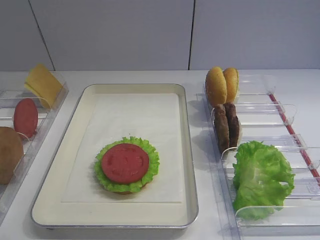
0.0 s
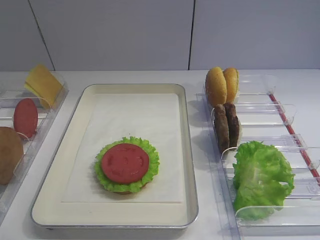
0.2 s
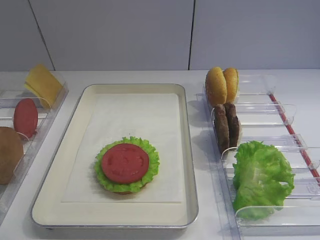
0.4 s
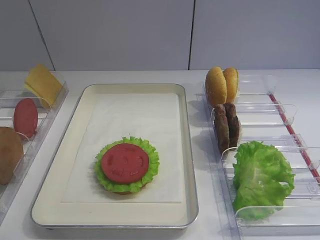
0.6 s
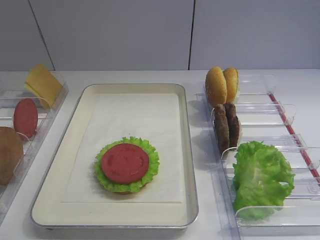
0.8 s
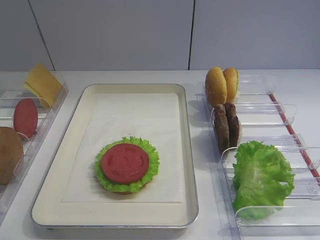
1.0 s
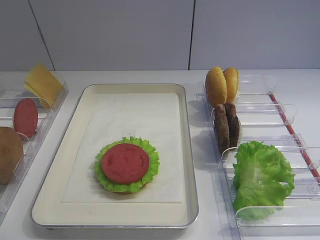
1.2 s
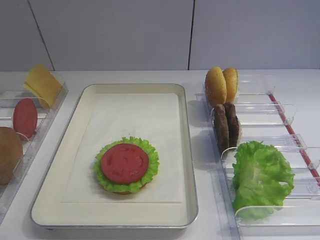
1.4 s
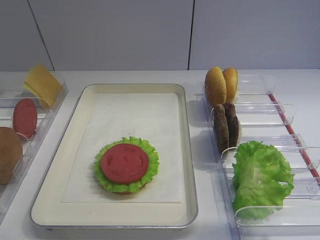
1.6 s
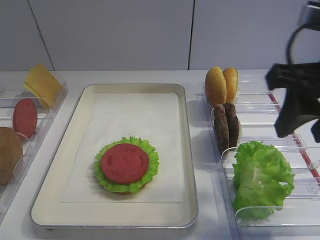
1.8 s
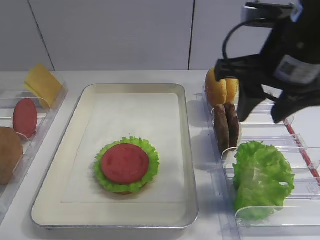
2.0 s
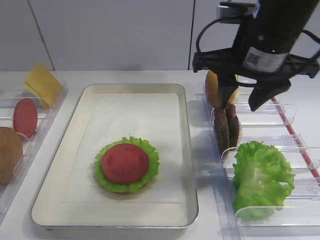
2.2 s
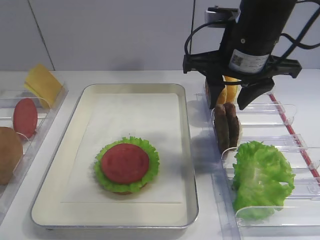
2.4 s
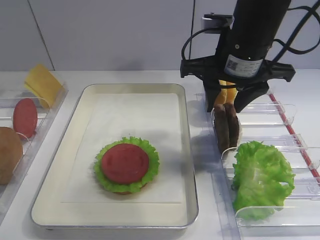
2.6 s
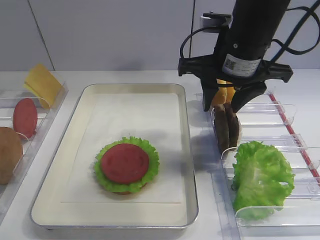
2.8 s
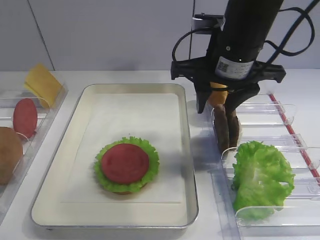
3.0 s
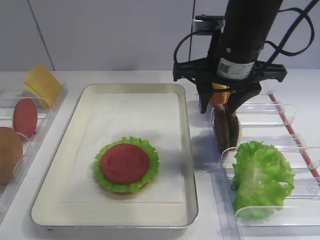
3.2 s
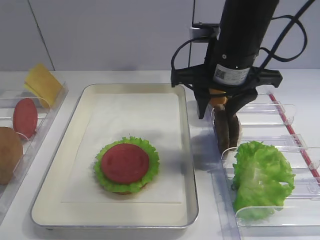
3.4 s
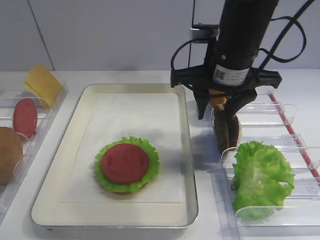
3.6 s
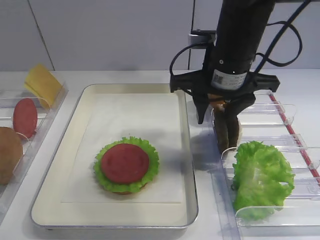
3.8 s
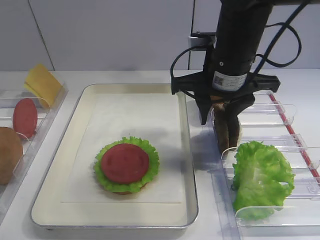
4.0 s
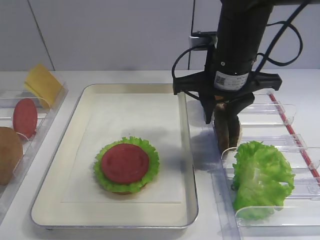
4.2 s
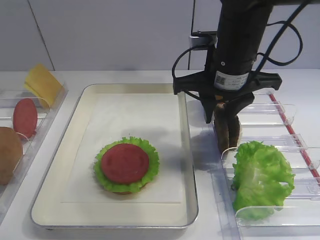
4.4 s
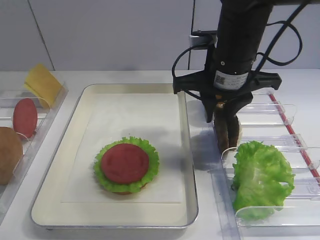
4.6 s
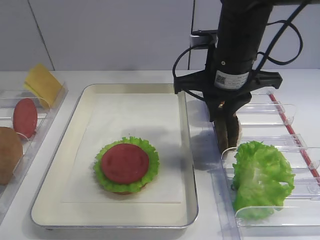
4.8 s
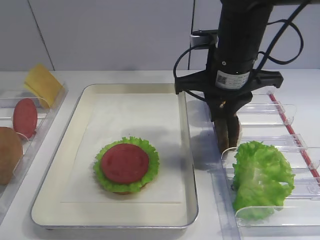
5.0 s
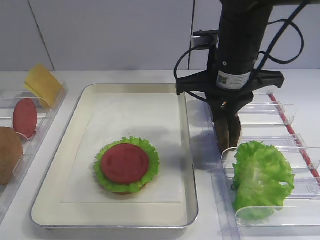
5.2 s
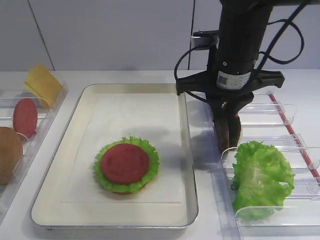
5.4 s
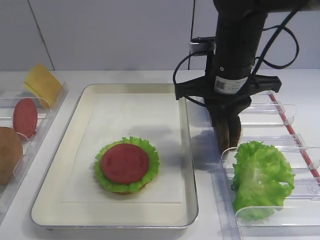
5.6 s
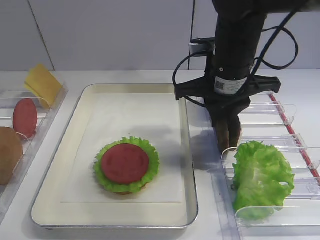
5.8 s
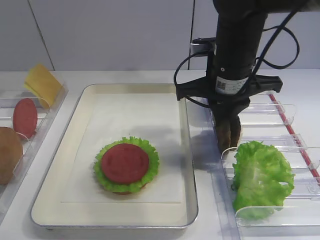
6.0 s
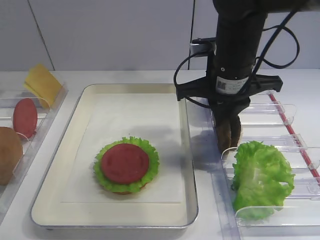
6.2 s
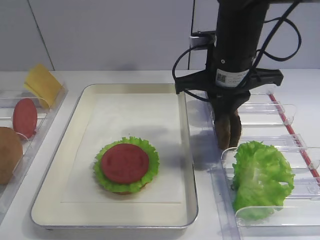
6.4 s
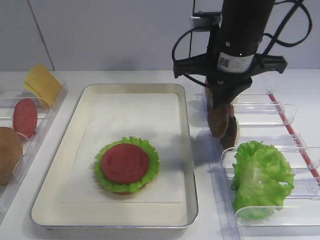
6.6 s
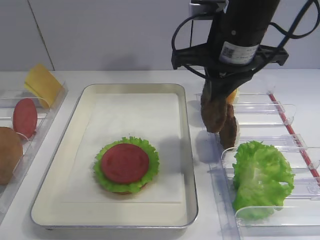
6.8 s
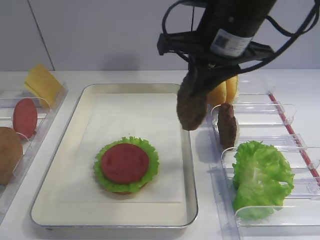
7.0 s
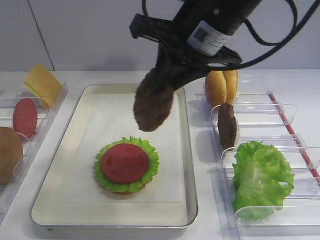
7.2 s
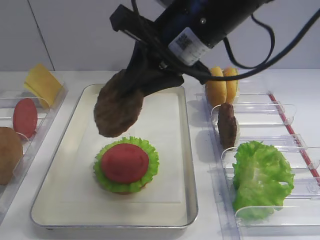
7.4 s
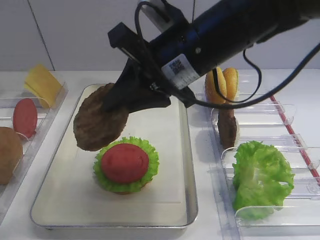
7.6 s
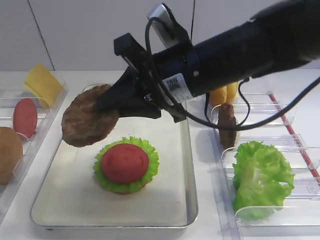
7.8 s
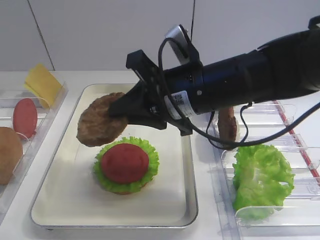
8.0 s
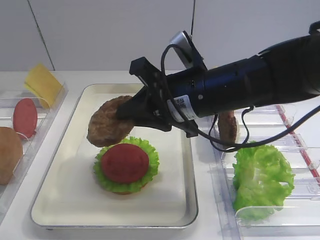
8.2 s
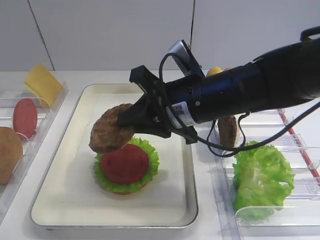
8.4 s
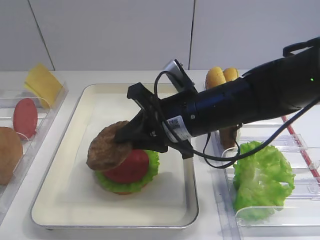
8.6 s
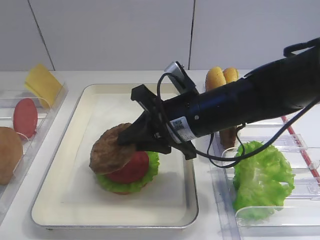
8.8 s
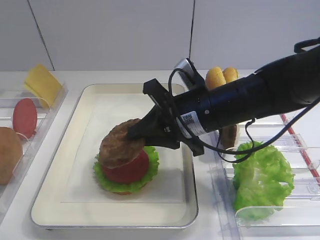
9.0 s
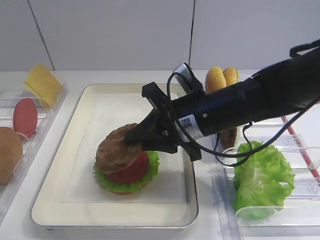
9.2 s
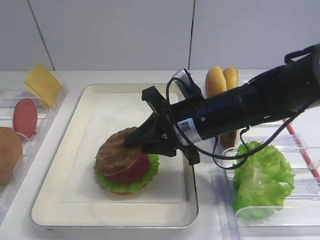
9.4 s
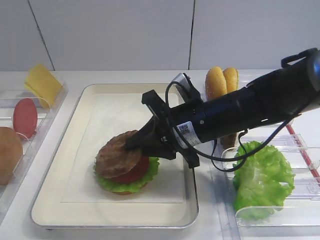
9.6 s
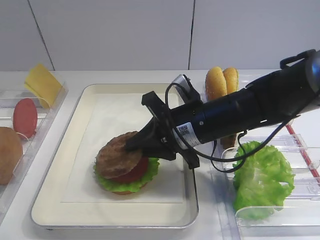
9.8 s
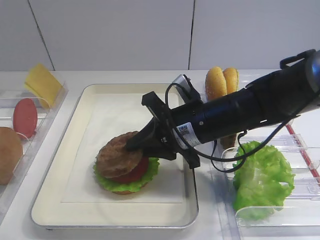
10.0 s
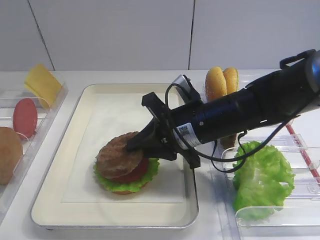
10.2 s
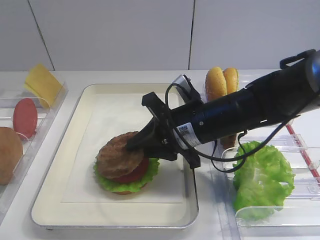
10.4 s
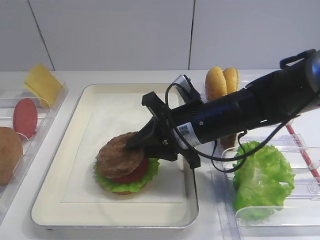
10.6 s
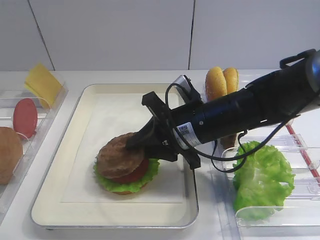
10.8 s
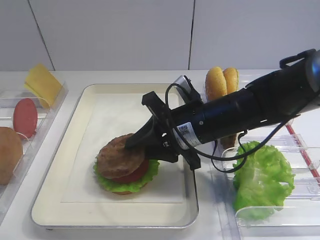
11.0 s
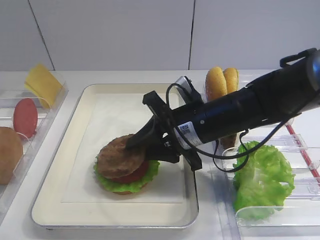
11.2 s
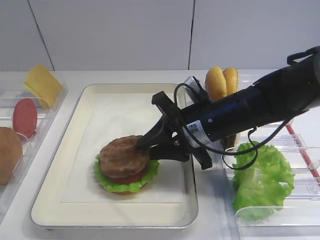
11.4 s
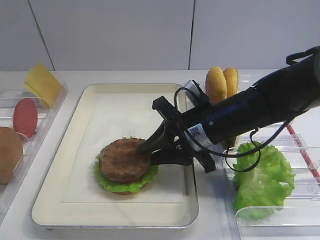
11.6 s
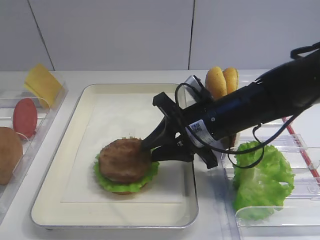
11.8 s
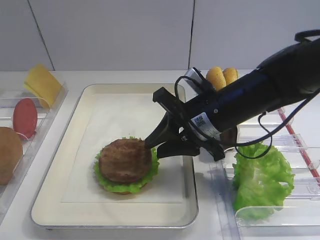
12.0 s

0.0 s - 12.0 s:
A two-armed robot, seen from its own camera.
Step, 0.0 s - 6.4 s: Pick up the cutlet with the right gripper.
Step, 6.6 s - 11.8 s: Place the cutlet on the tomato slice with the right gripper.
1.6 s - 3.0 s: The right gripper travels forward and to the left by approximately 20 cm.
3.0 s - 4.4 s: The grippers make only small movements.
4.4 s - 6.0 s: The right gripper closes up.
6.0 s - 7.6 s: The right gripper travels upward, backward and to the left by approximately 10 cm.
7.6 s - 9.0 s: The right gripper travels downward by about 10 cm.
9.0 s - 12.0 s: The grippers move only a little.

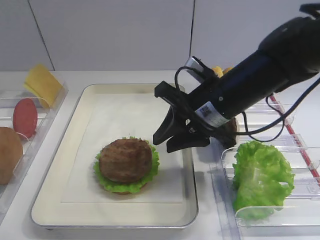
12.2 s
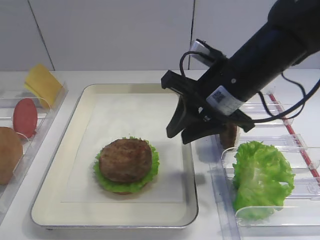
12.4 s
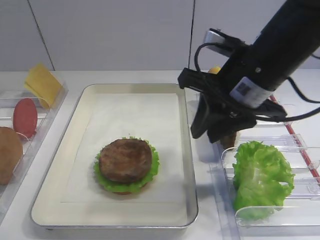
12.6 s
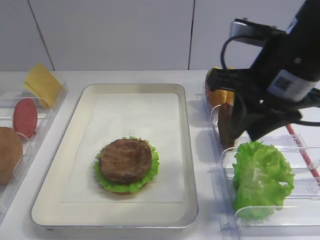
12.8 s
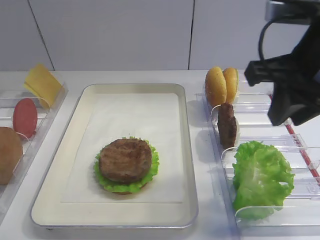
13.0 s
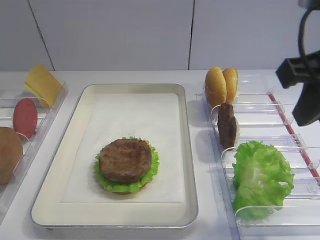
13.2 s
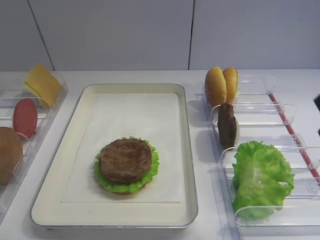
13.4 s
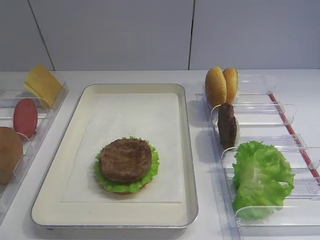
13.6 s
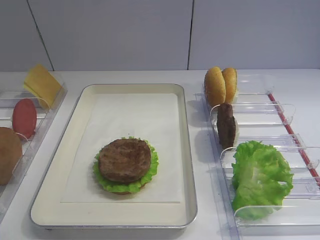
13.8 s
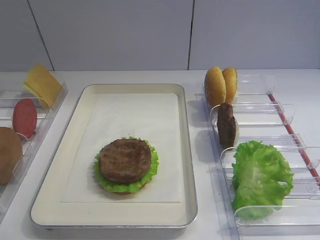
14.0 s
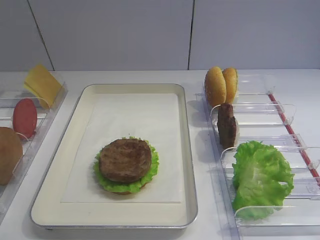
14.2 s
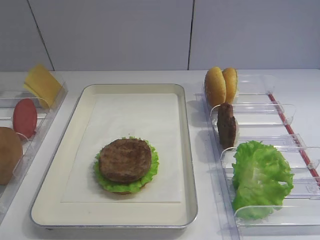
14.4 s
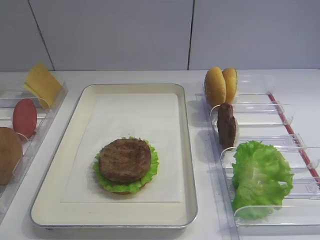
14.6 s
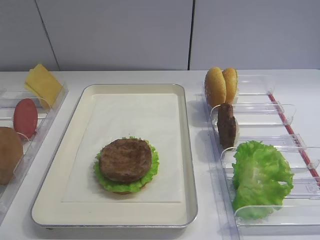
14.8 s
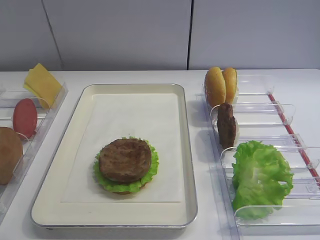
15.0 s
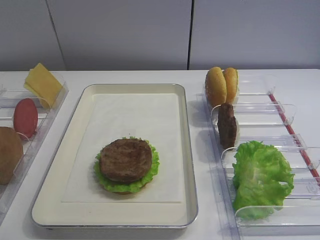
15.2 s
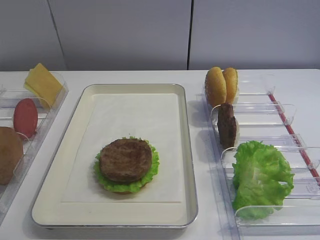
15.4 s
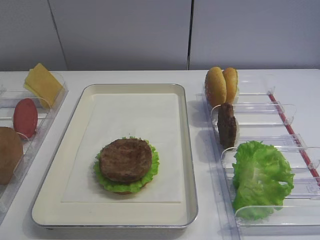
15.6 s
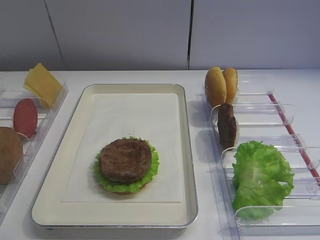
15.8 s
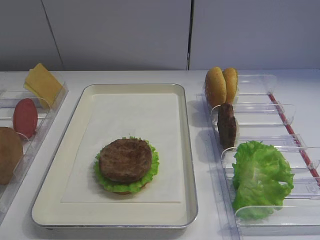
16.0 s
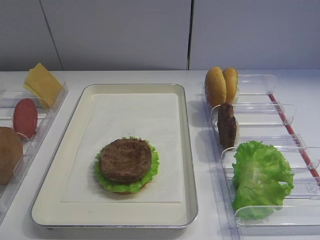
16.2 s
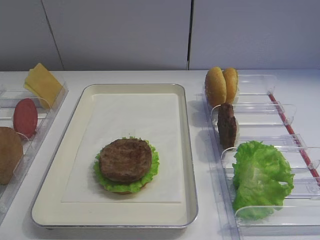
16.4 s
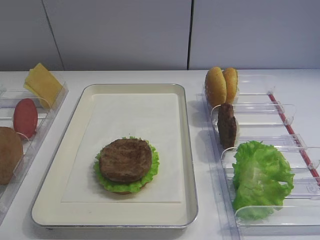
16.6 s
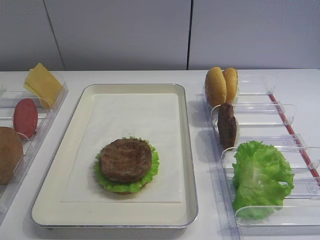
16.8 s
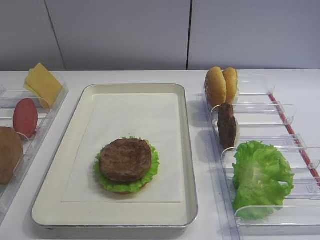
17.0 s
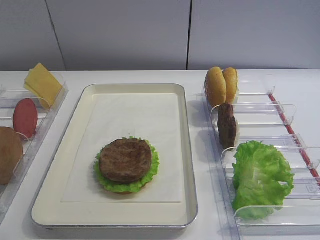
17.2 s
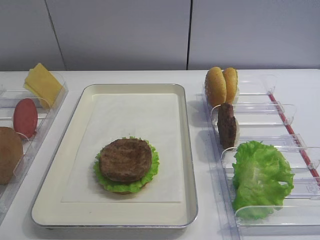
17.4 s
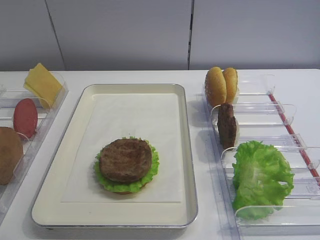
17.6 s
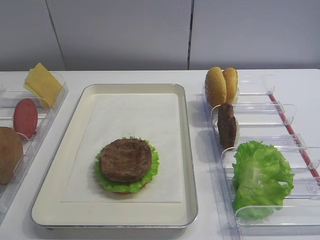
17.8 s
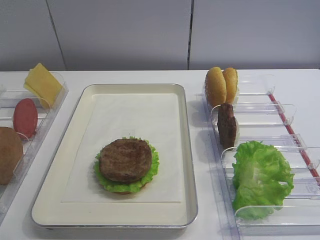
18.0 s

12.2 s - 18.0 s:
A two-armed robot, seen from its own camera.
12.2 s - 13.6 s: The right gripper heads backward, upward and to the right, covering about 25 cm.
13.6 s - 15.0 s: The right gripper shifts about 15 cm backward and downward.
15.0 s - 18.0 s: The two grippers keep their place.

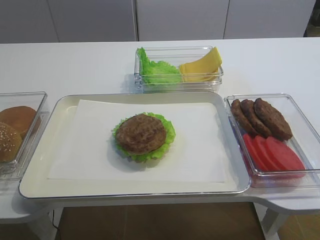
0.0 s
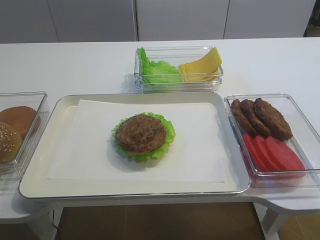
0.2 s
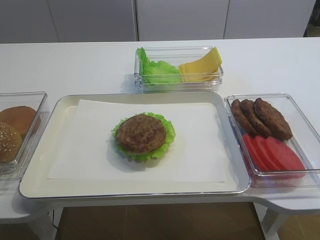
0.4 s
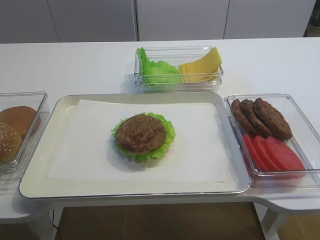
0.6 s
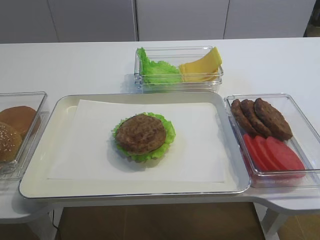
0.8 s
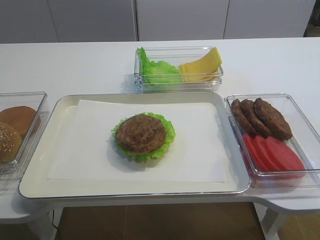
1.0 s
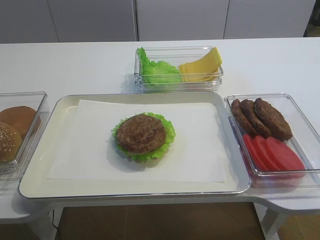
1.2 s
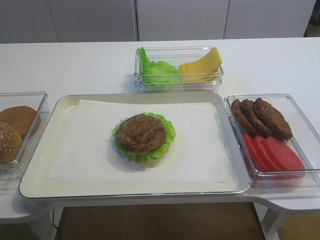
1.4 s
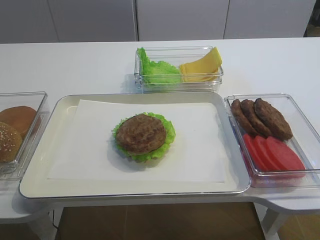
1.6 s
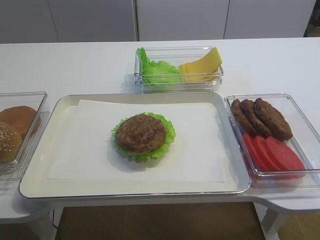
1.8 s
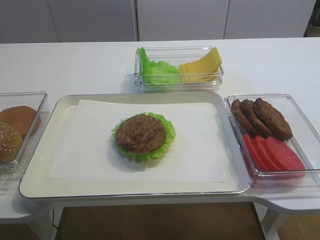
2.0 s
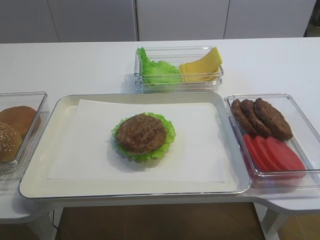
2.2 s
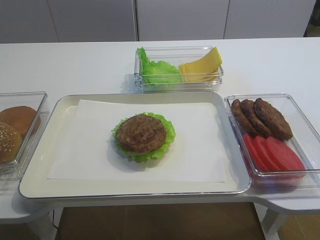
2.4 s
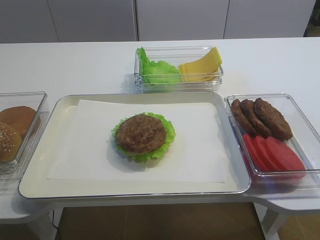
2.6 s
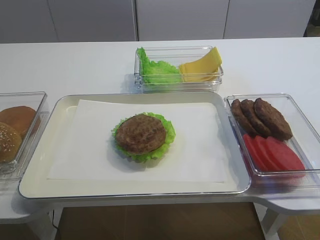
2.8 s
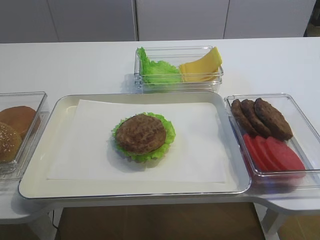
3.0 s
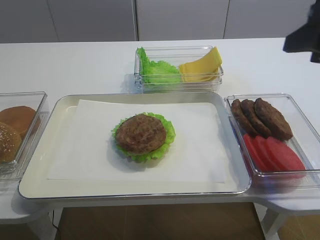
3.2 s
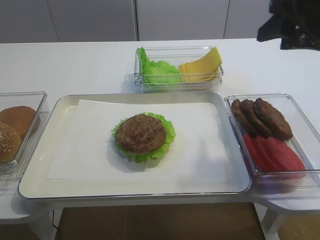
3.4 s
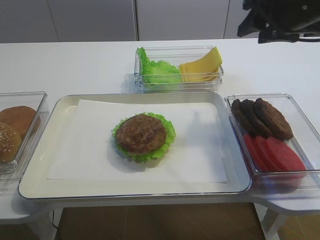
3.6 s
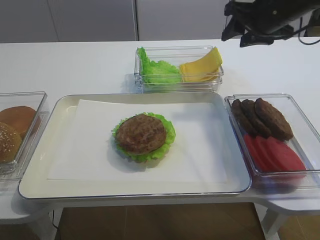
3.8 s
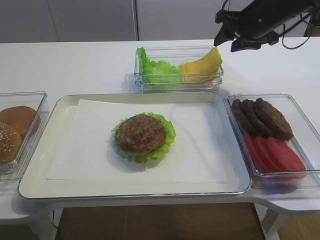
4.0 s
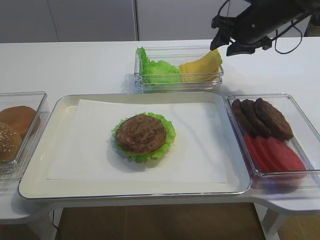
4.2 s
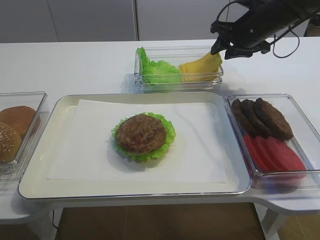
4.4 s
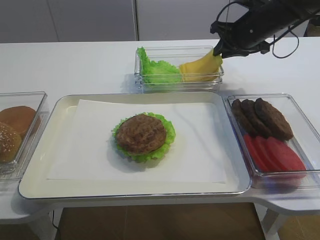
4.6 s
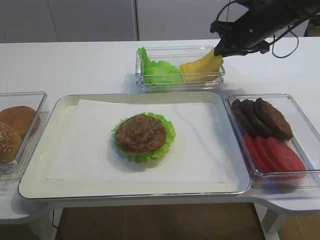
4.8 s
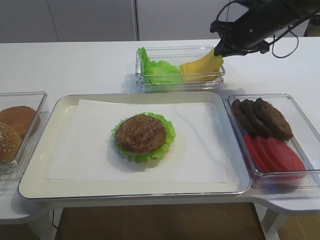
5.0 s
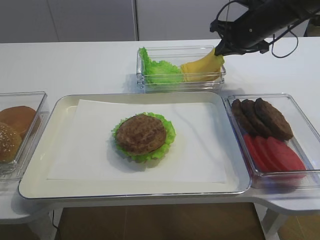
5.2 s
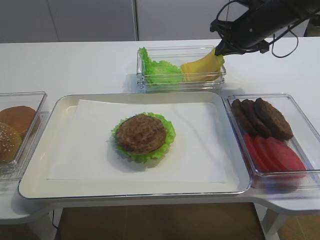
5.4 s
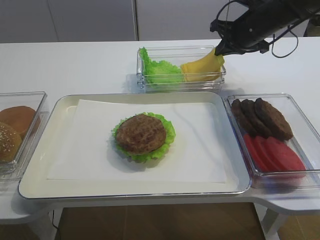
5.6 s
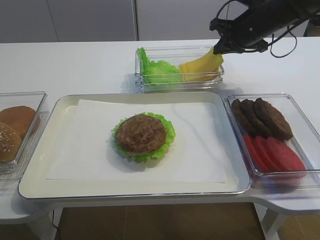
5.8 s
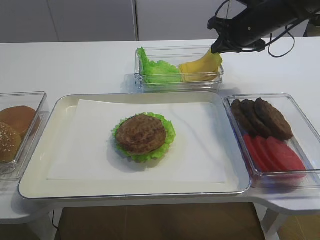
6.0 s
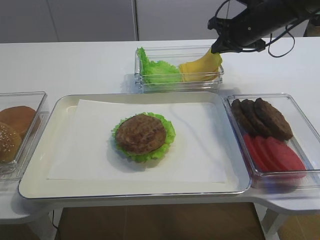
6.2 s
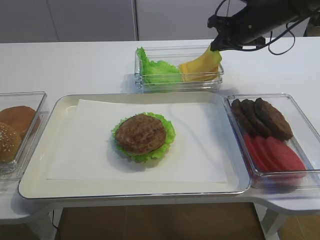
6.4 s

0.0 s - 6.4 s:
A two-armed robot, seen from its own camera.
1.6 s - 3.2 s: The right gripper shifts roughly 20 cm forward.
3.2 s - 4.8 s: The right gripper goes about 25 cm forward, and closes.
4.8 s - 6.4 s: Both grippers stay about where they are.
